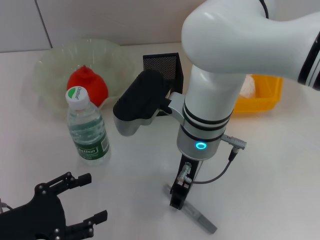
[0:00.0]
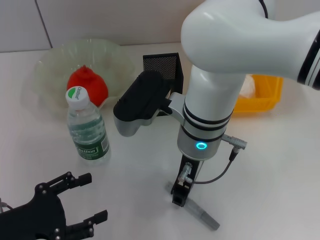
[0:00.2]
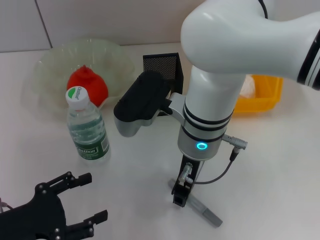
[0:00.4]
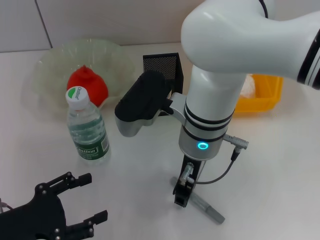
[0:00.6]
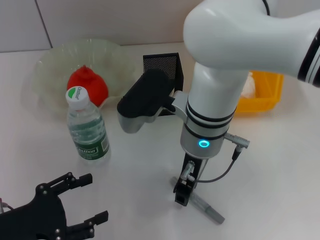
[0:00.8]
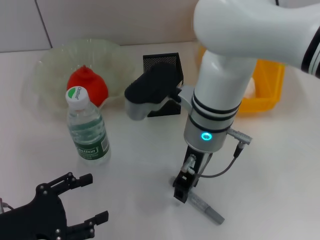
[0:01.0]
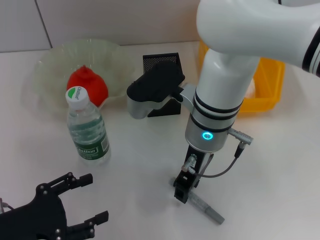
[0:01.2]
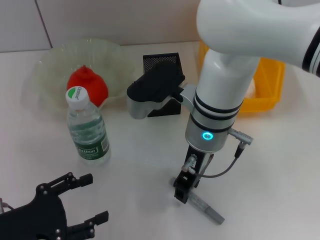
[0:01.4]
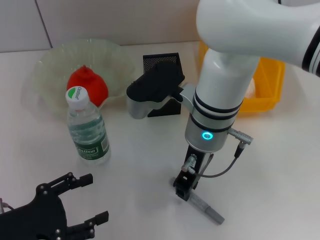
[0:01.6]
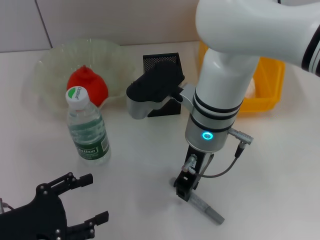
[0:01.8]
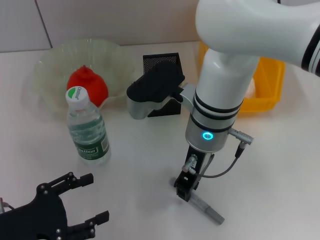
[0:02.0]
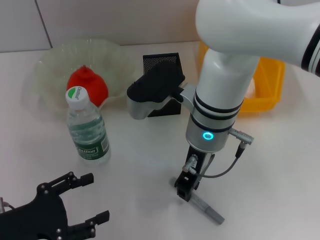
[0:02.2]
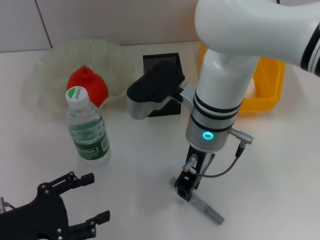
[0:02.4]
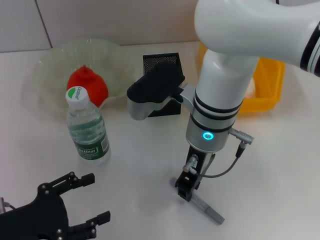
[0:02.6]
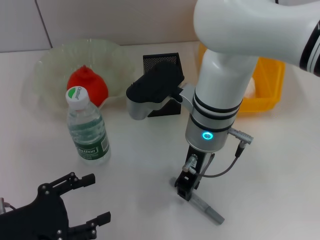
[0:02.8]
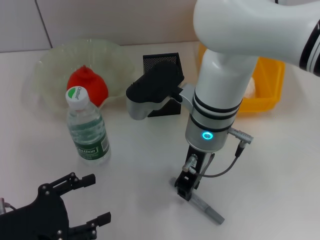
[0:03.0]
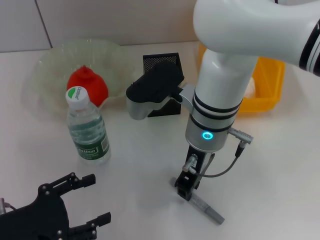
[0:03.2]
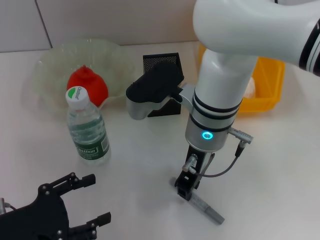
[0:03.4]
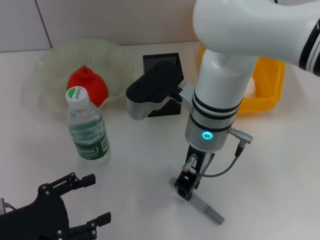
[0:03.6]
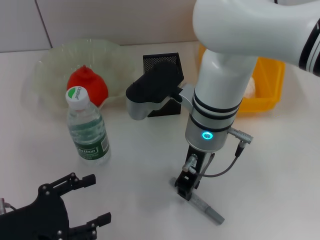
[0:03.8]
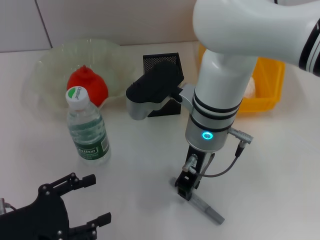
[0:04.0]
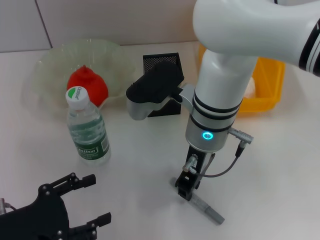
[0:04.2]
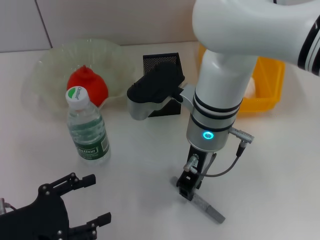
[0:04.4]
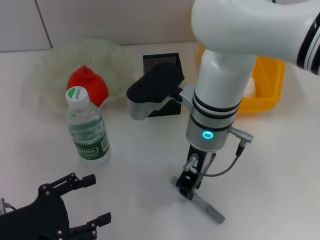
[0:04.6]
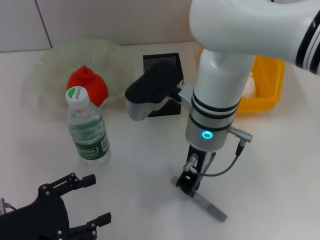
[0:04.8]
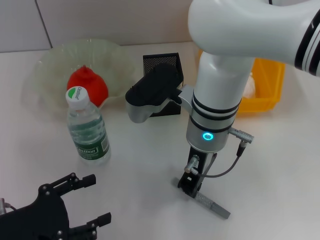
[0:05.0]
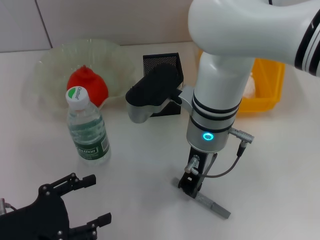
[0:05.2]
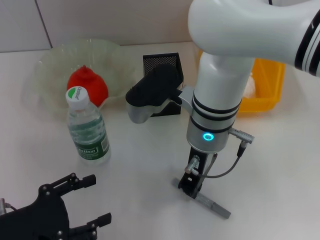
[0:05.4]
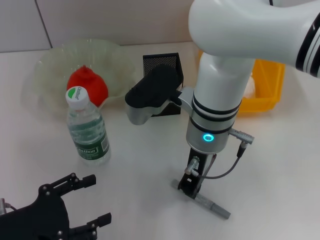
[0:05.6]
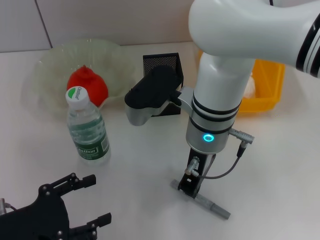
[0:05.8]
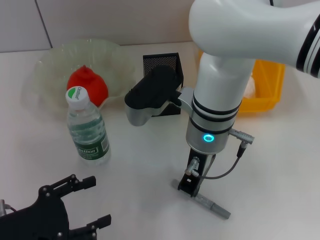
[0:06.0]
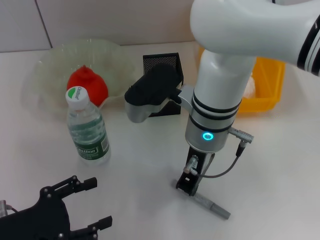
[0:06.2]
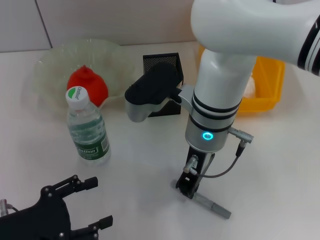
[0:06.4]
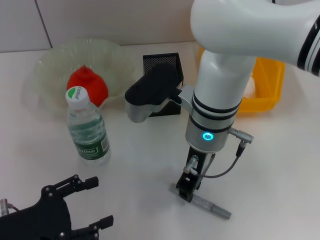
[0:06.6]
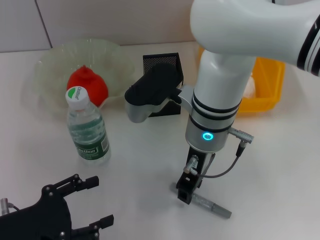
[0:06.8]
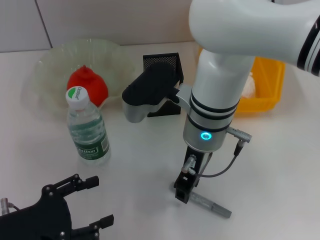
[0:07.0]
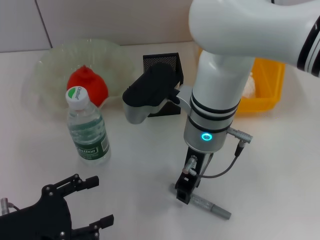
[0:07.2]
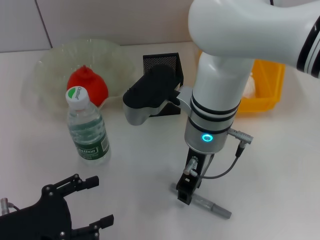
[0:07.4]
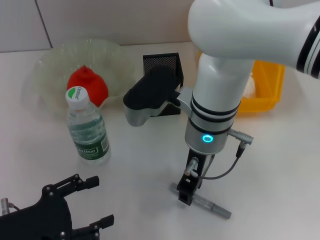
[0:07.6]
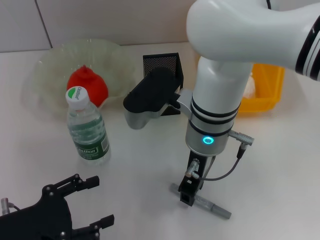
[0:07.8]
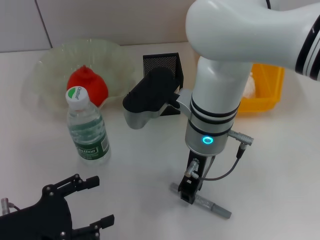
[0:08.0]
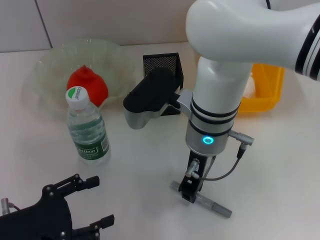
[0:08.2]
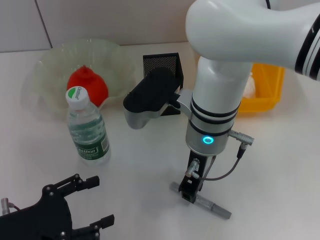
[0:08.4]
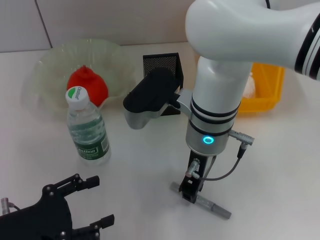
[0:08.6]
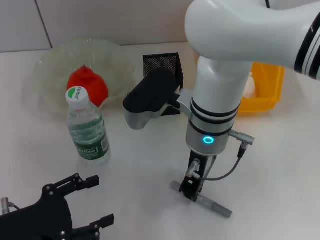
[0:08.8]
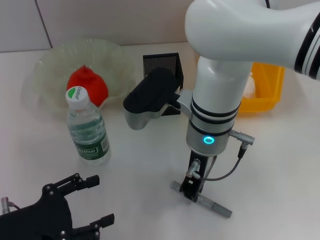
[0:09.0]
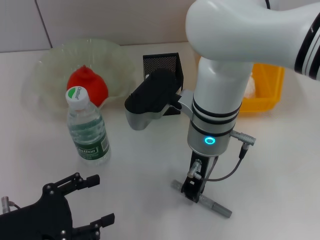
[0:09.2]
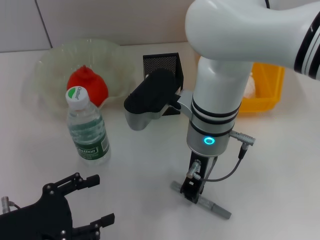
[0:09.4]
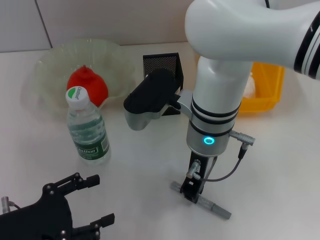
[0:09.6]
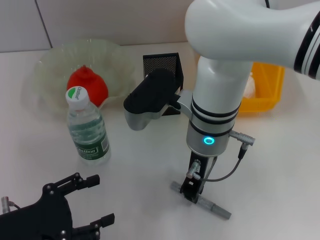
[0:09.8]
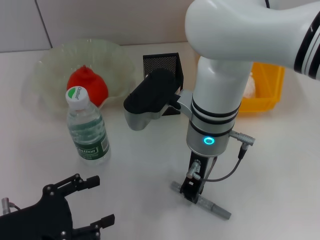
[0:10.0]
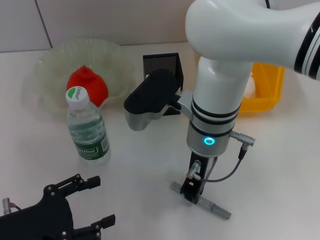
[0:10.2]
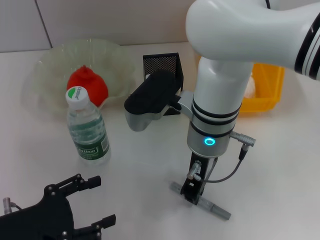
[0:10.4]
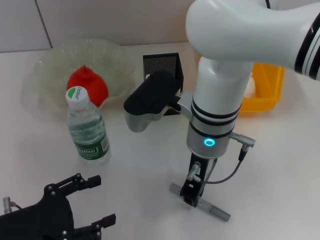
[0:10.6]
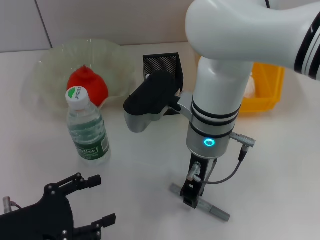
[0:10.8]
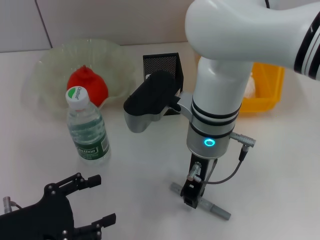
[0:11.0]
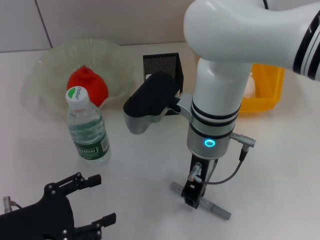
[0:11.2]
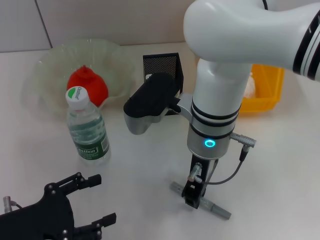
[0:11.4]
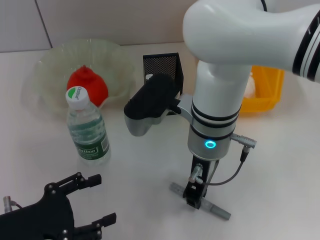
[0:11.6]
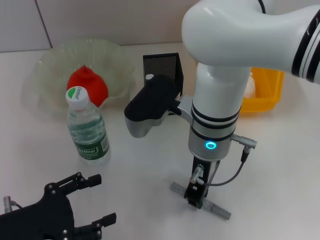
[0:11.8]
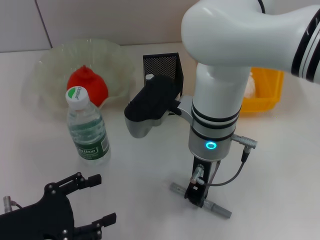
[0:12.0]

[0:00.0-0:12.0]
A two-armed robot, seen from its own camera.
0:00.0 to 0:01.6: The right gripper closes.
0:01.6 to 0:06.0: Both grippers stay put.
0:06.0 to 0:07.6: The right gripper opens up.
0:07.6 to 0:12.0: Both grippers stay put.

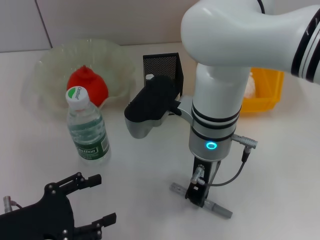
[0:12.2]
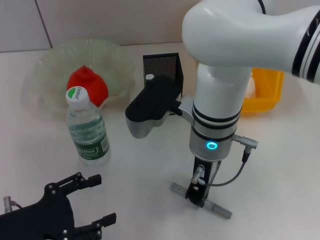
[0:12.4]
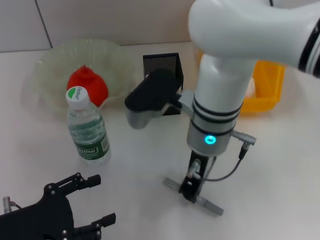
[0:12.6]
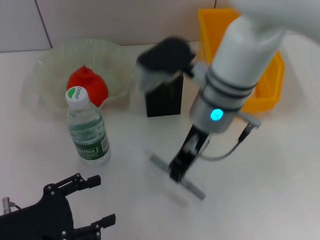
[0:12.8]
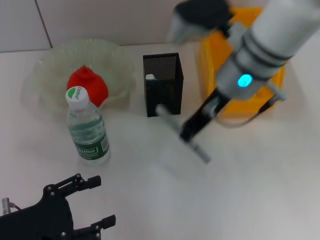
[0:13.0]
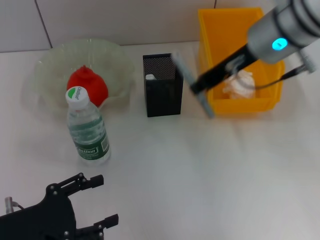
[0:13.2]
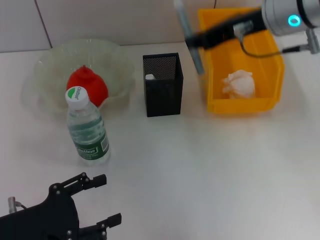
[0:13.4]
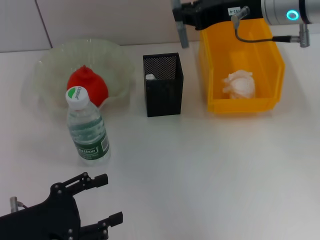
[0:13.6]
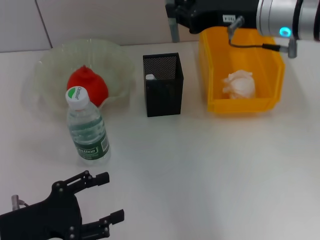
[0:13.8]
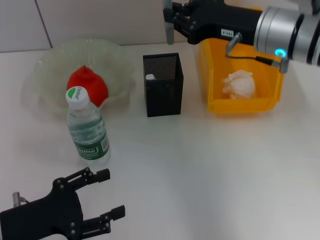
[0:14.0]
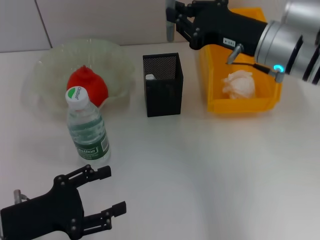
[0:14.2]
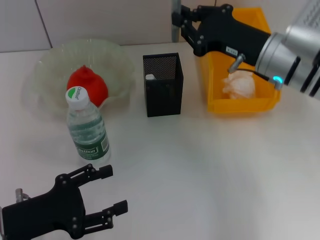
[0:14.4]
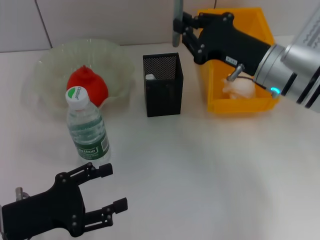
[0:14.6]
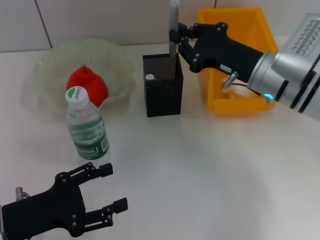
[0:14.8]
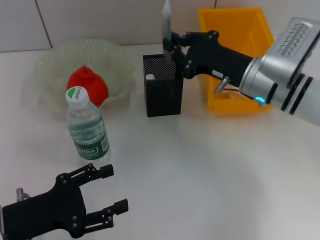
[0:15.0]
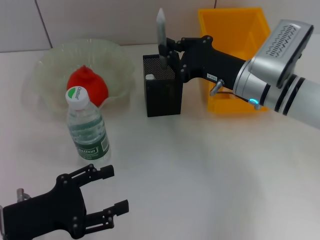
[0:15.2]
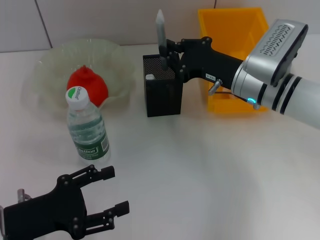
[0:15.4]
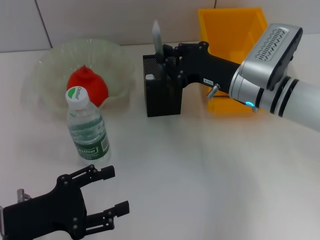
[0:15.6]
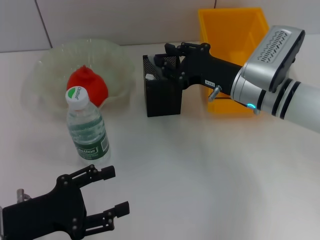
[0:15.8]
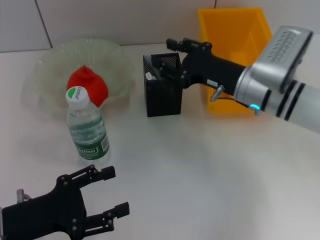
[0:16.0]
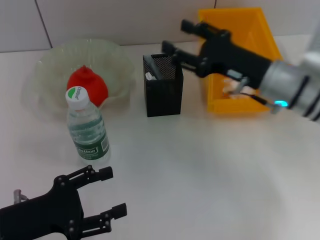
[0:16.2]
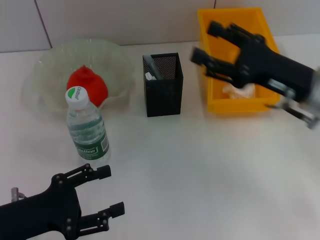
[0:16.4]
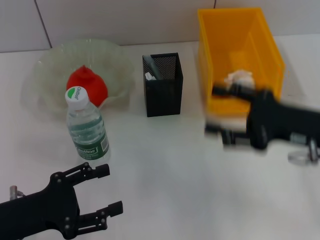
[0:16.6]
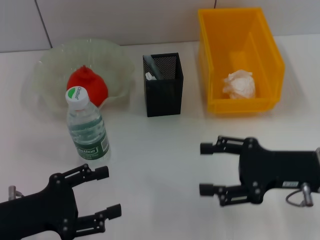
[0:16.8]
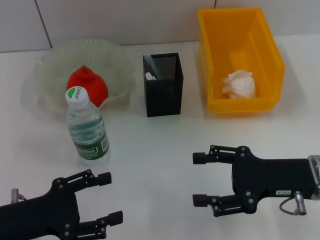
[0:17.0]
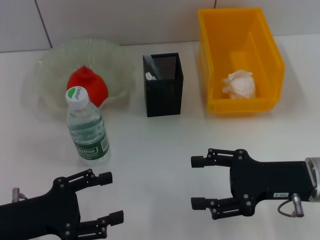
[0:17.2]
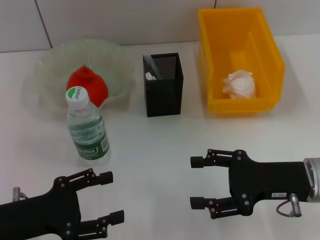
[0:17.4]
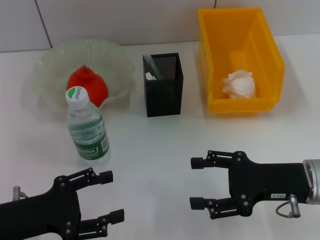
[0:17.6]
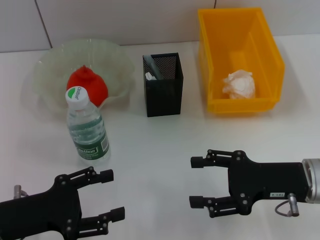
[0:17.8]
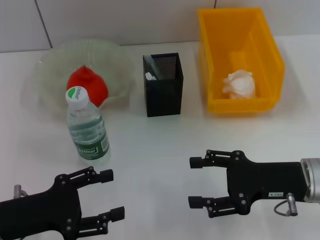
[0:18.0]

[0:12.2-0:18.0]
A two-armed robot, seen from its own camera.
Step, 0:12.6 to 0:15.8: Place the gray glue into the pen holder with the right hand.
0:12.2 to 0:13.6: The right gripper heads to the right, upward and forward, covering approximately 15 cm.
0:13.6 to 0:15.0: The right gripper is displaced downward by about 15 cm.
0:15.0 to 0:16.6: The right gripper goes roughly 15 cm backward and to the right, and opens.
0:16.6 to 0:18.0: The right gripper moves roughly 5 cm.

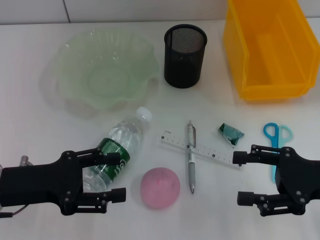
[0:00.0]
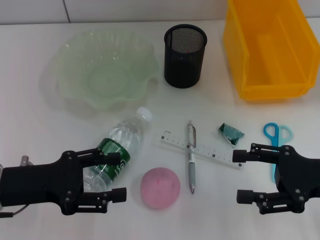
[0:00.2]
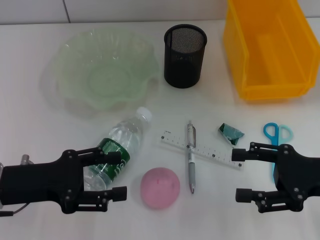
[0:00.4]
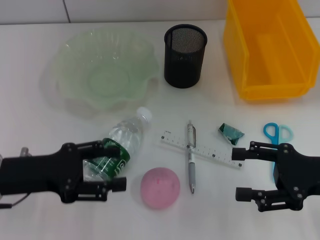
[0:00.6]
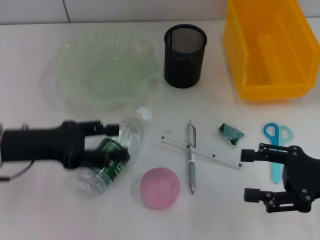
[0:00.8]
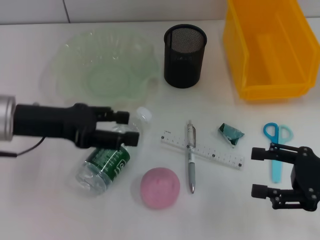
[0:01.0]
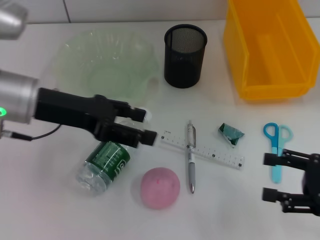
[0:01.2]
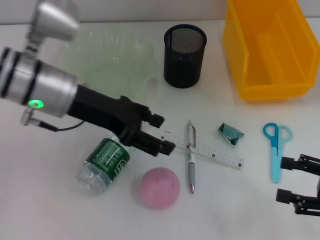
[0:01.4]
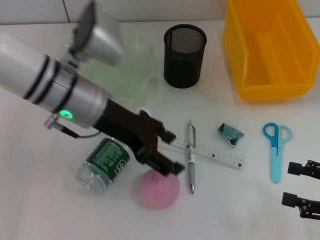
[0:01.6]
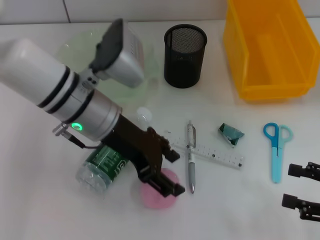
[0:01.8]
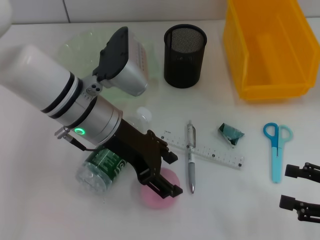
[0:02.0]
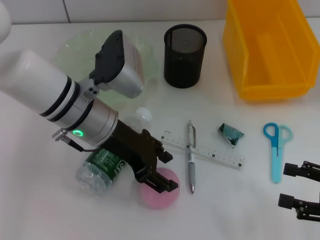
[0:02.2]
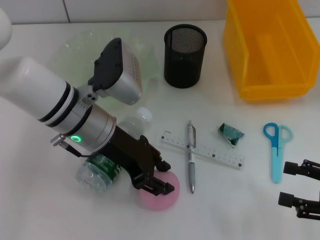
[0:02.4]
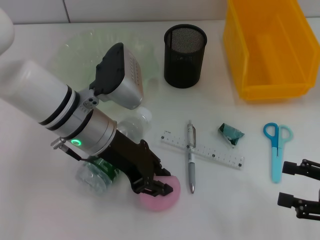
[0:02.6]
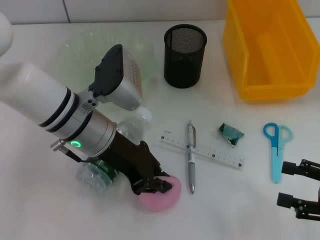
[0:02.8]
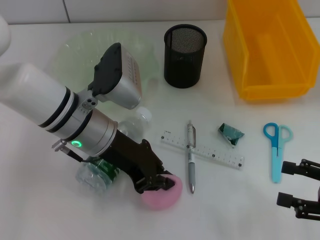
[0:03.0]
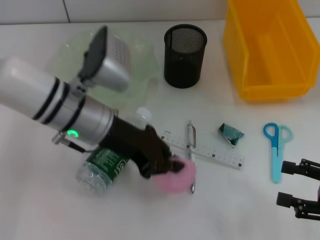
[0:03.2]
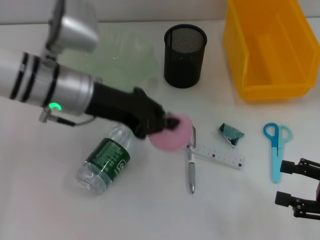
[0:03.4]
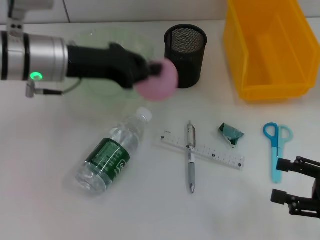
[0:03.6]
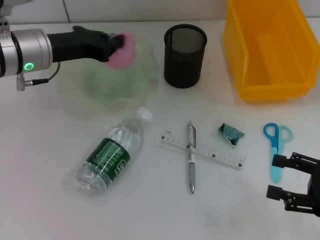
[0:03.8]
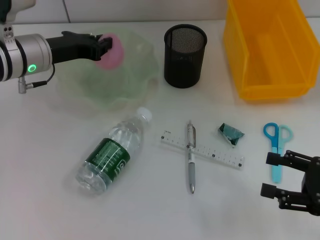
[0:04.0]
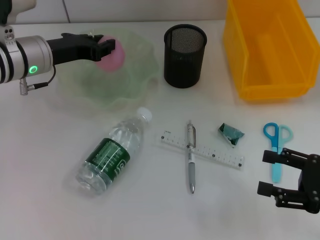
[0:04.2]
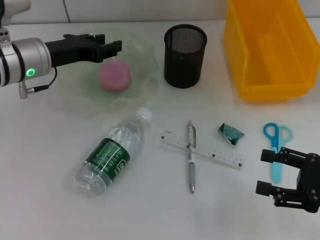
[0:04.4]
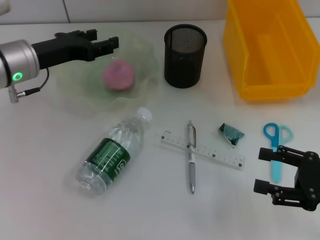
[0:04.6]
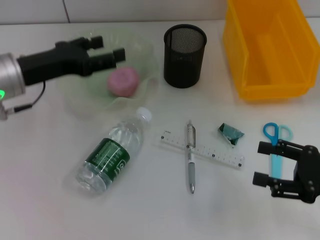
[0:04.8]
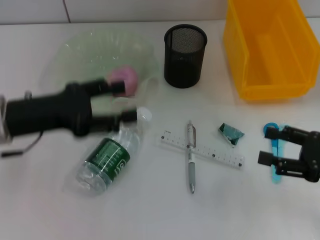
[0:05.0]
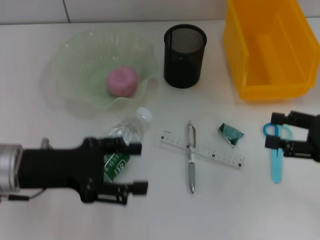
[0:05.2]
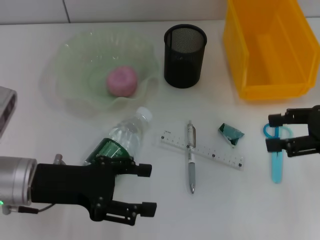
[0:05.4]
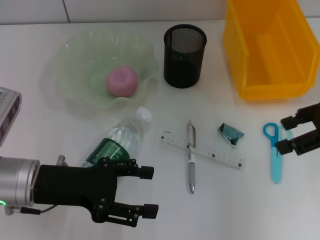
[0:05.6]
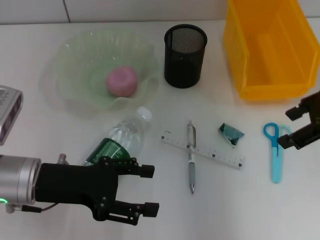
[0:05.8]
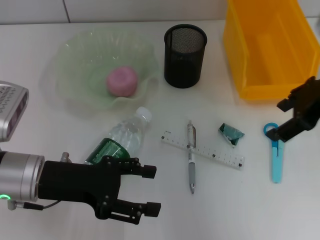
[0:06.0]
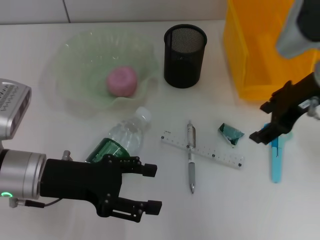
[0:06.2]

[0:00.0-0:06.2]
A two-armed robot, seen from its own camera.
Step, 0:00.0 to 0:02.8: Grab the peach with the left hand.
Step, 0:03.0 to 0:04.4: Place the peach into the fruit bowl with the left hand.
0:00.0 to 0:01.6: The right gripper goes some 5 cm to the right; the left gripper heads to the right, forward and upward, covering approximately 20 cm.
0:01.6 to 0:03.2: The left gripper closes its fingers.
0:03.2 to 0:04.6: The left gripper goes some 10 cm to the left and forward, and opens up.
0:04.6 to 0:06.2: The left gripper shifts about 10 cm backward, while the right gripper moves forward, upward and to the left, about 20 cm.
